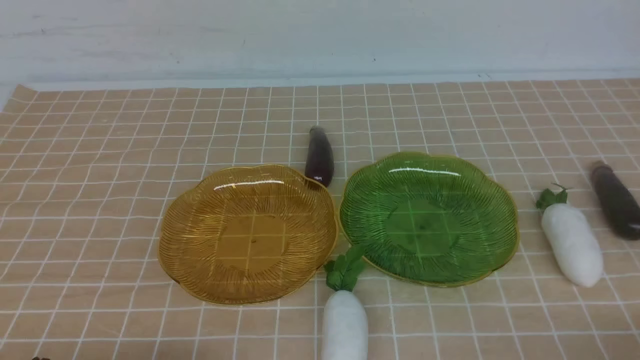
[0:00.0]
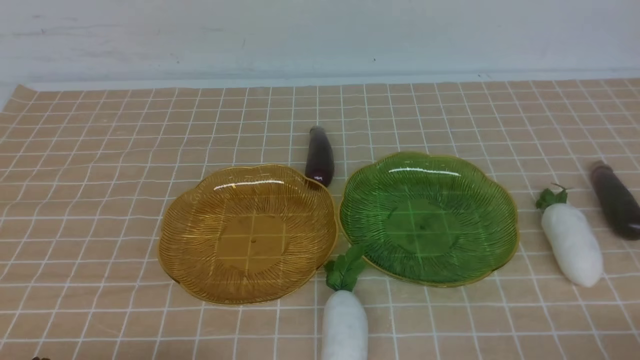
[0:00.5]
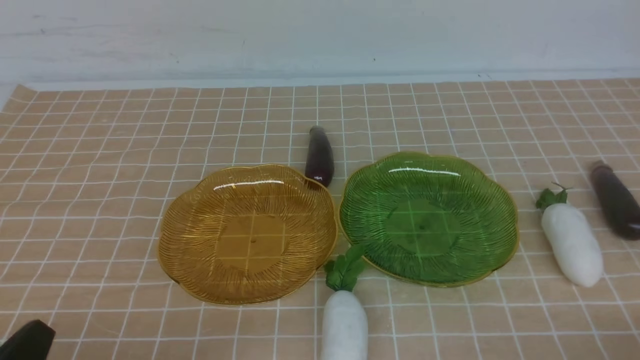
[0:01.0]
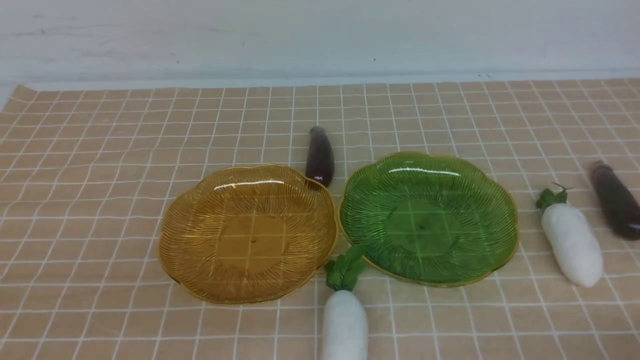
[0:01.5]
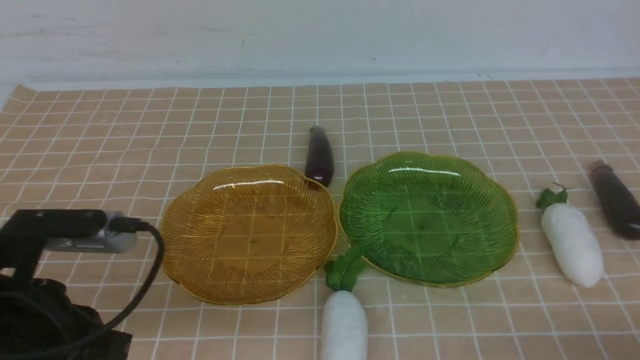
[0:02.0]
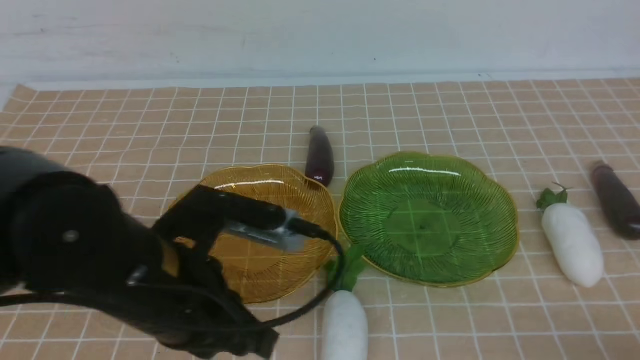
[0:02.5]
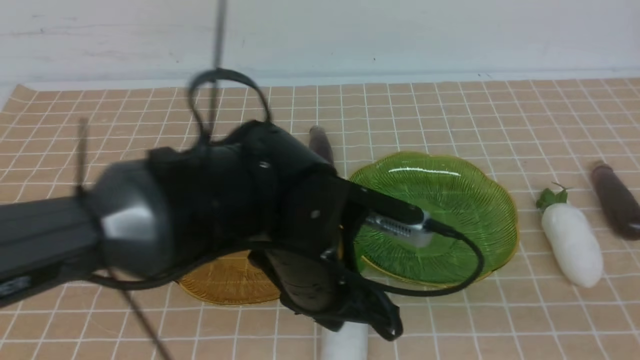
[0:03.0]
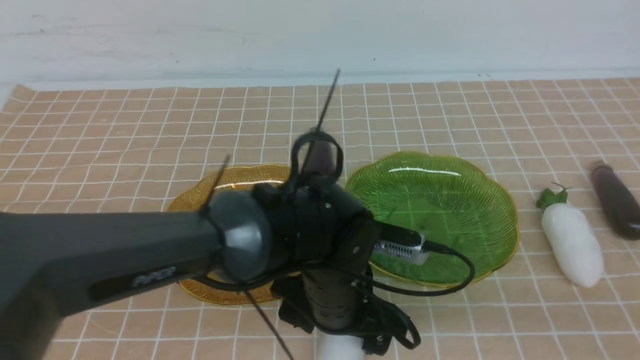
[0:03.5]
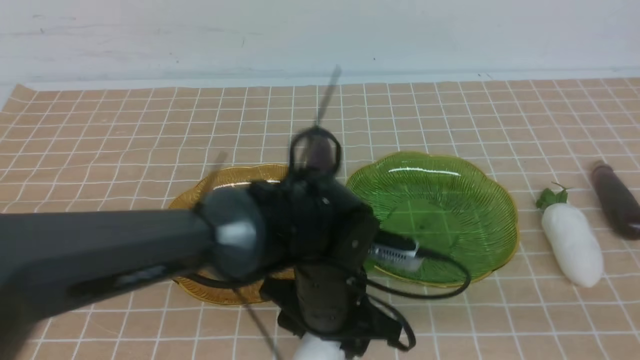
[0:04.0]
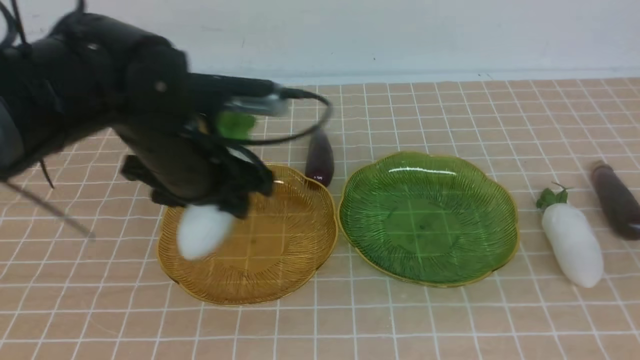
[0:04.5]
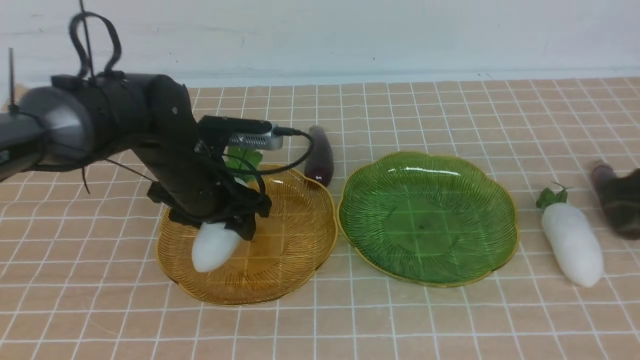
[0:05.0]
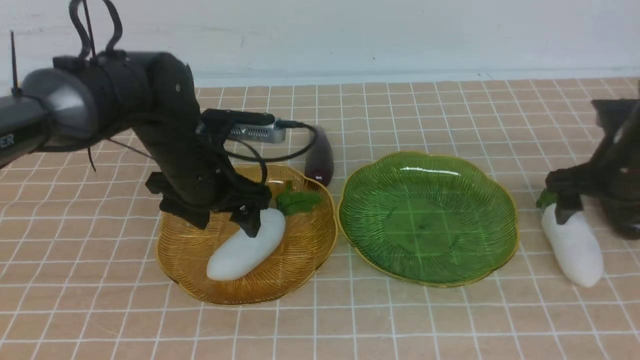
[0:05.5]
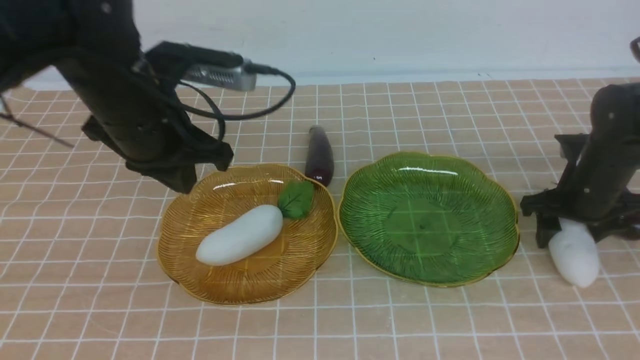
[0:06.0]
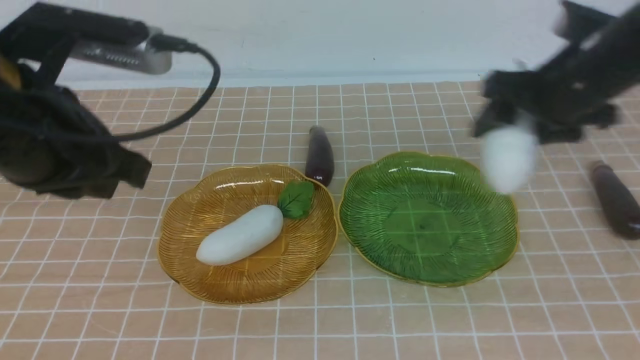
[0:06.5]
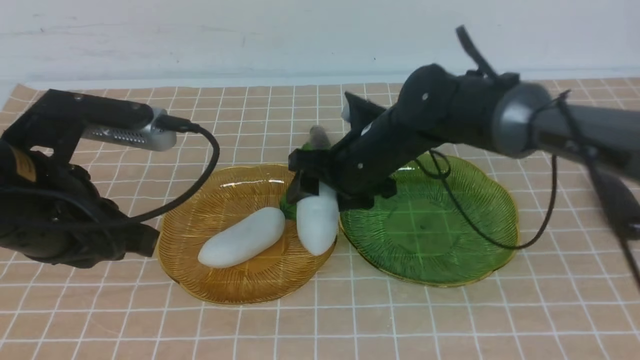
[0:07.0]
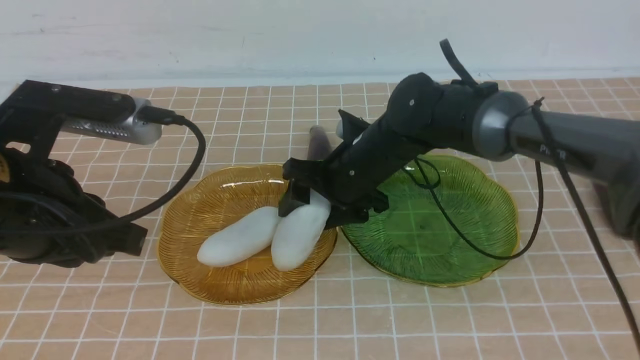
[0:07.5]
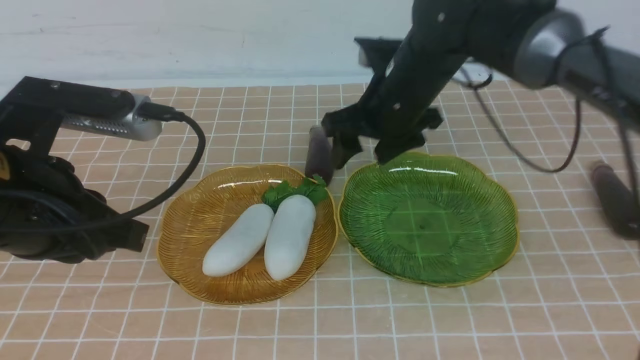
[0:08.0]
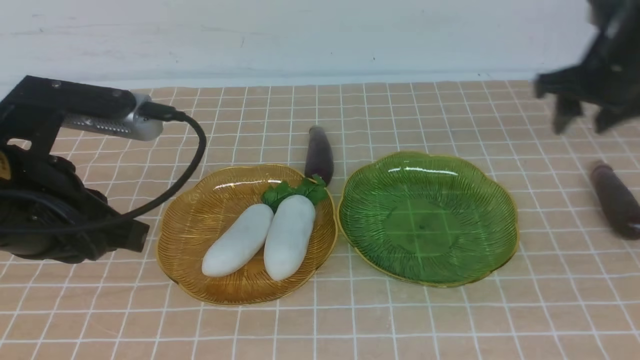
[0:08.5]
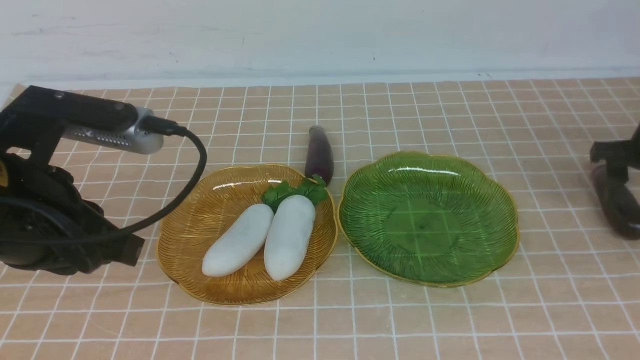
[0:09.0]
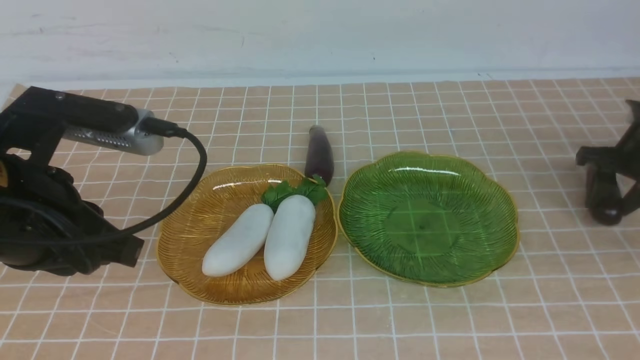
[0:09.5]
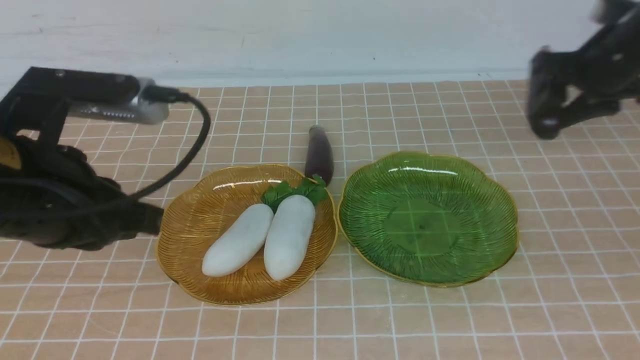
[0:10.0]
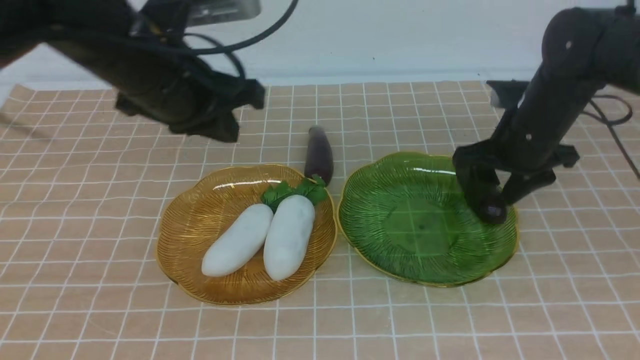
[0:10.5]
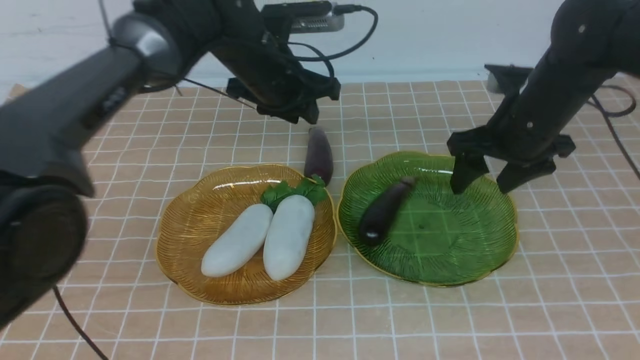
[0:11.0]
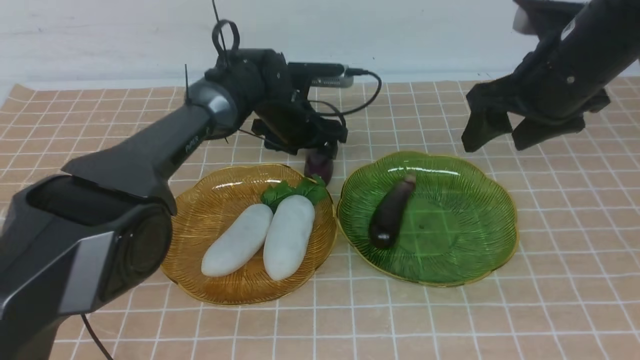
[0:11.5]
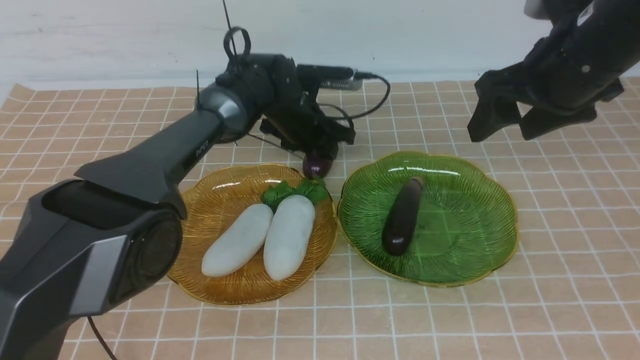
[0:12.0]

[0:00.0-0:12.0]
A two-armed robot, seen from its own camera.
Step, 0:00.0 to 0:05.0: use the left arm to grab a radish and put it into the left plate.
Step, 0:06.0 to 0:07.5: use the right arm to grab a radish and put it into the left plate.
Step, 0:08.0 to 0:10.5: use the right arm to grab an eggplant and put it into the right plate.
0:00.0 to 0:02.0: The left gripper travels upward and forward by roughly 15 cm.
0:02.0 to 0:04.0: The left gripper goes some 25 cm to the right and forward, and opens, while the right gripper travels upward by roughly 10 cm.
0:04.0 to 0:06.0: The right gripper goes some 35 cm forward, and opens up. Meanwhile the left gripper goes approximately 20 cm to the left, upward and forward, and closes up.
0:06.0 to 0:08.0: The right gripper travels to the left and upward by approximately 20 cm; the left gripper heads backward, covering about 10 cm.
0:08.0 to 0:10.0: The left gripper moves forward and to the right, some 15 cm. The right gripper travels to the right by roughly 10 cm.
0:10.0 to 0:12.0: The right gripper heads upward and backward, covering roughly 25 cm; the left gripper goes approximately 25 cm to the right and downward, and opens.

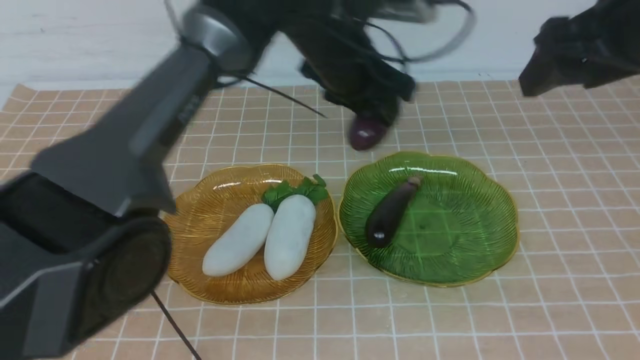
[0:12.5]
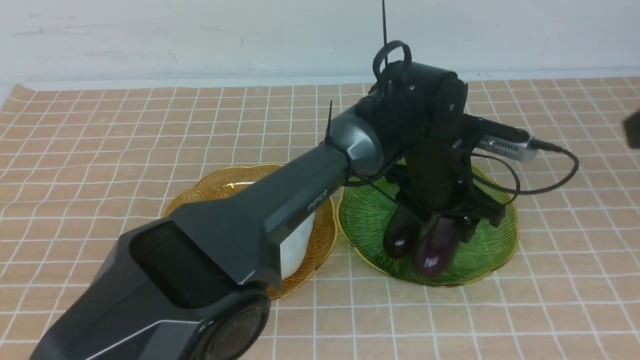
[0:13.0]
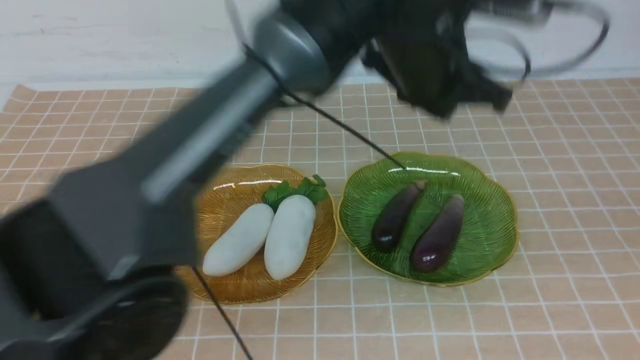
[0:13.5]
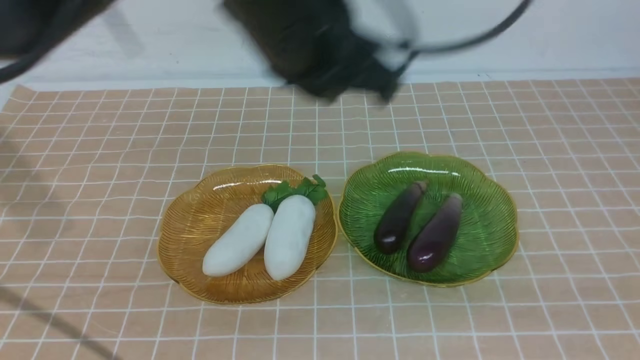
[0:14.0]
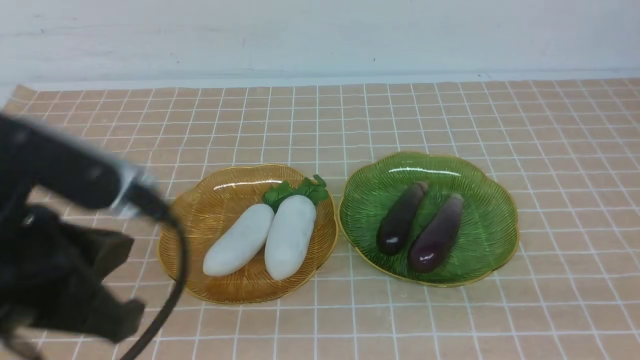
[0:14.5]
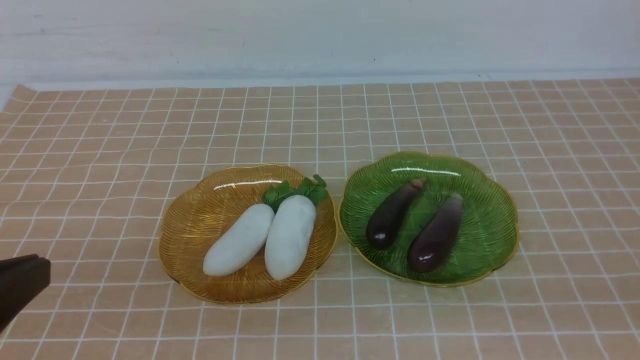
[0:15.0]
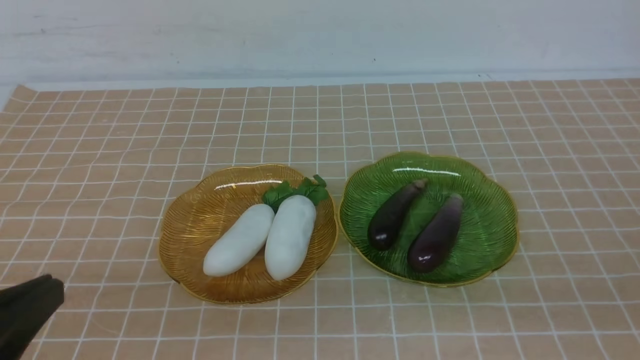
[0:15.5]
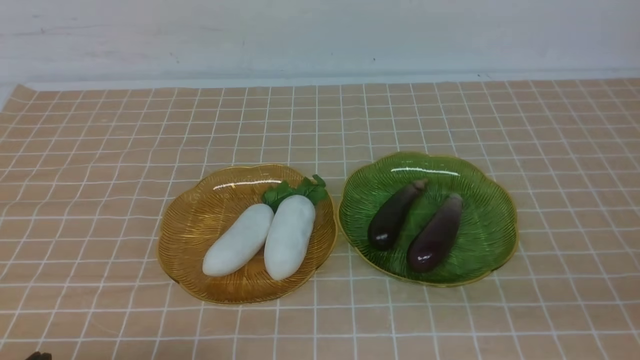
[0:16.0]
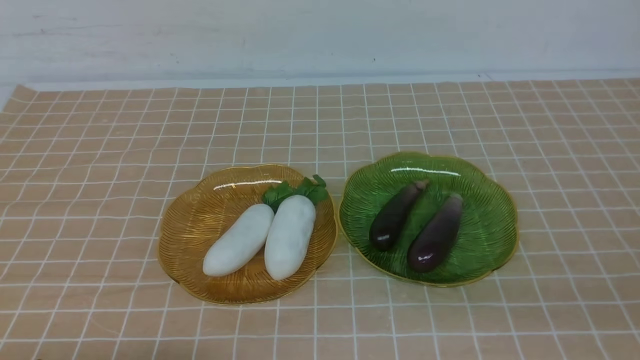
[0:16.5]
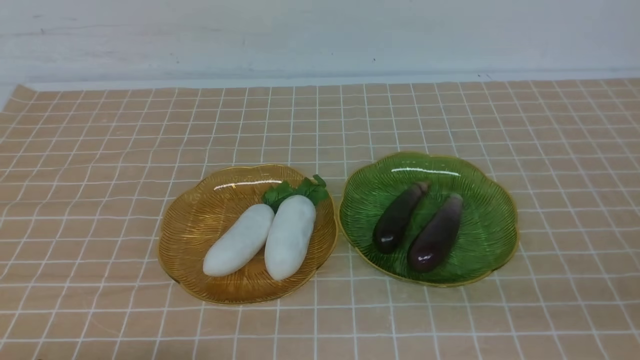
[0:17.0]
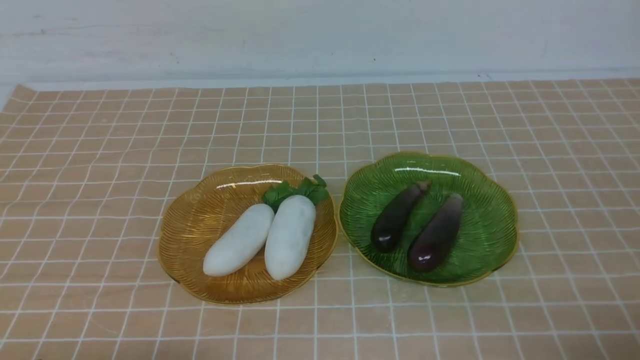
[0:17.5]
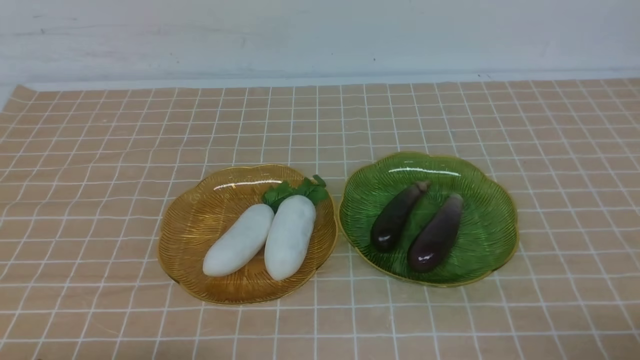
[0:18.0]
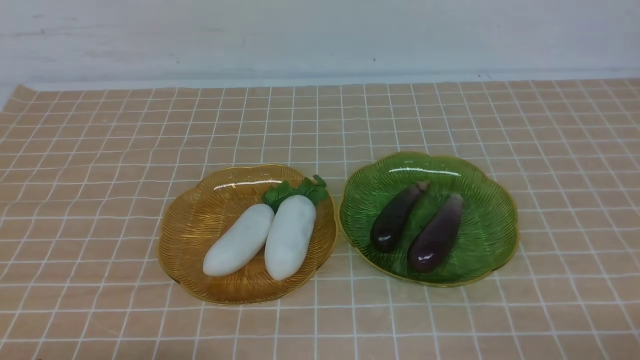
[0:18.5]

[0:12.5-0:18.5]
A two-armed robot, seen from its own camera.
0:12.5 to 0:14.5: The right gripper moves downward and backward, roughly 15 cm, and closes its fingers, while the left gripper travels to the left and backward by some 50 cm, and closes up.
0:14.5 to 0:16.5: Both grippers move downward, approximately 15 cm.
